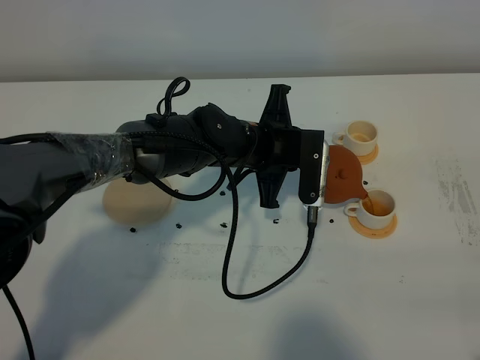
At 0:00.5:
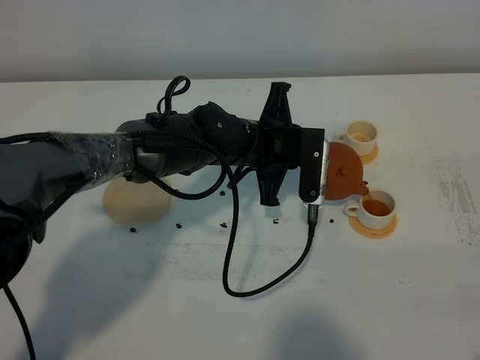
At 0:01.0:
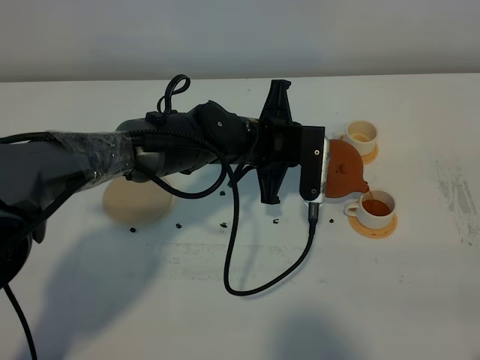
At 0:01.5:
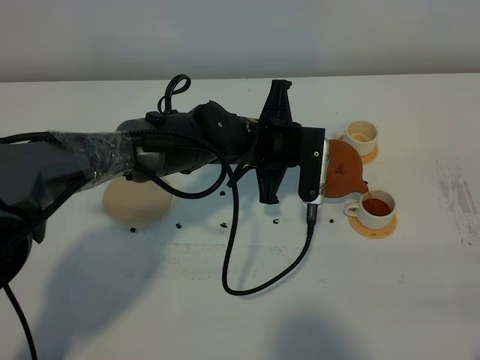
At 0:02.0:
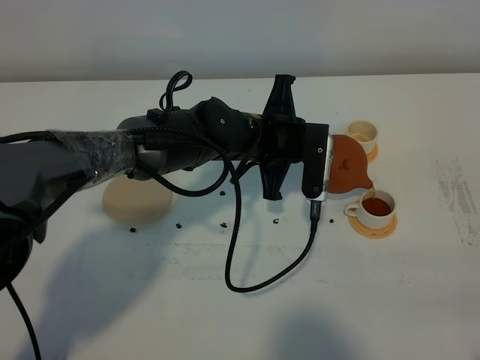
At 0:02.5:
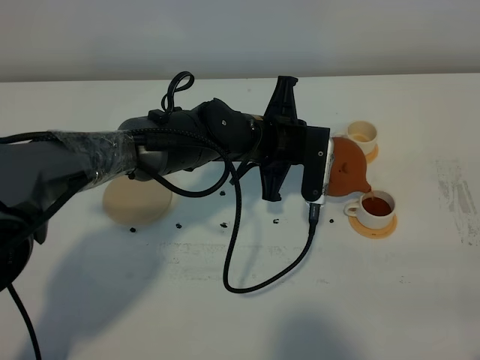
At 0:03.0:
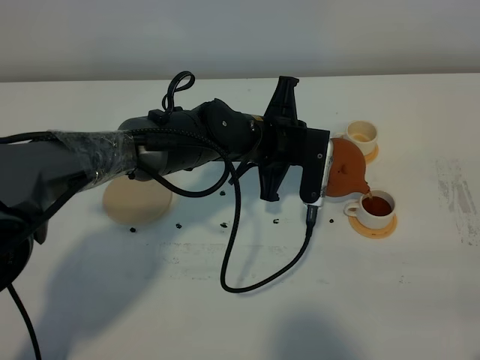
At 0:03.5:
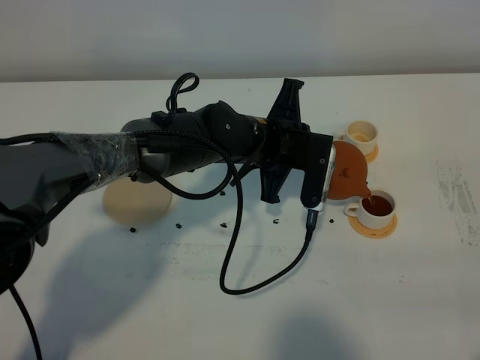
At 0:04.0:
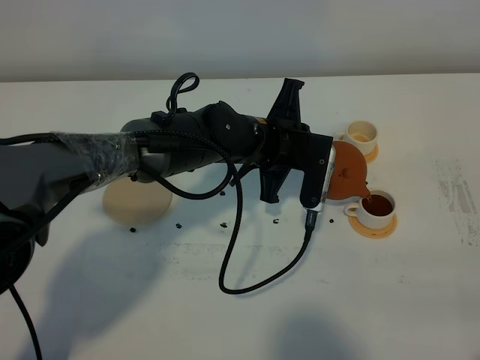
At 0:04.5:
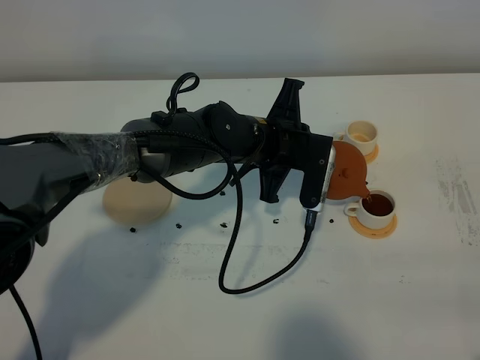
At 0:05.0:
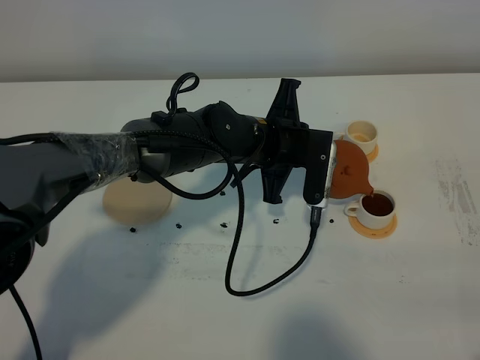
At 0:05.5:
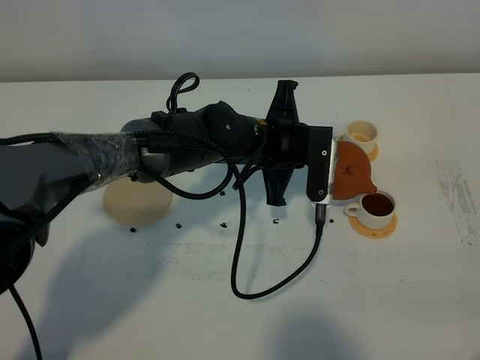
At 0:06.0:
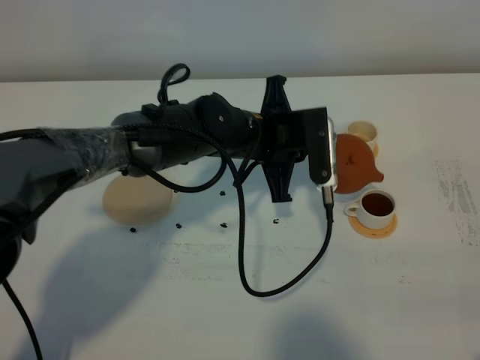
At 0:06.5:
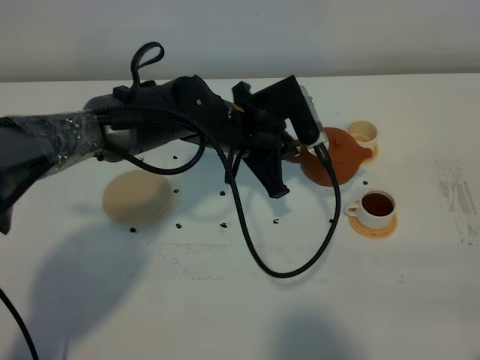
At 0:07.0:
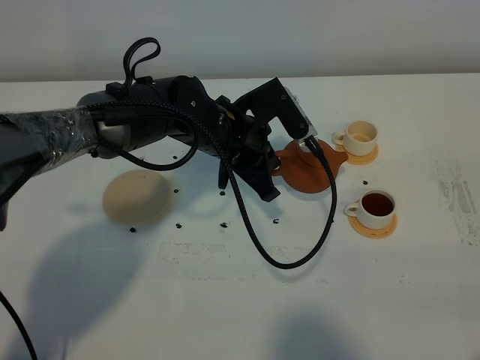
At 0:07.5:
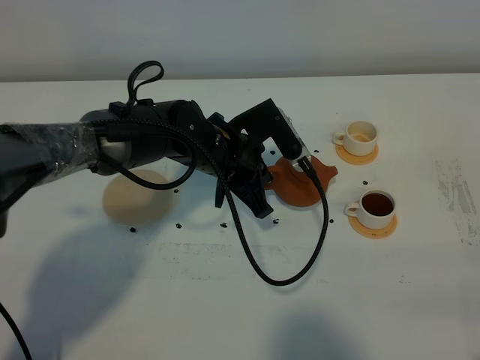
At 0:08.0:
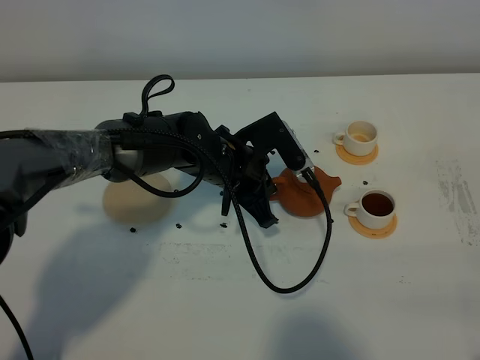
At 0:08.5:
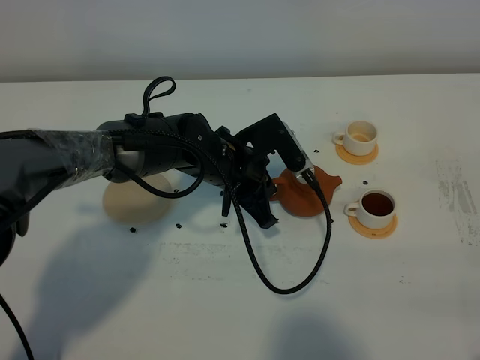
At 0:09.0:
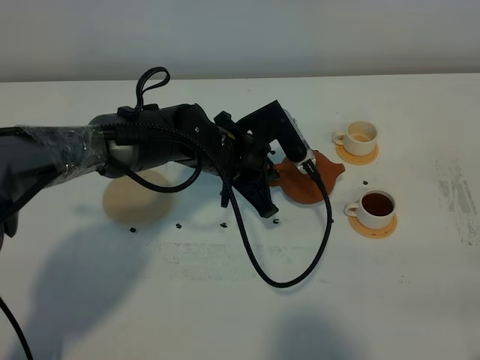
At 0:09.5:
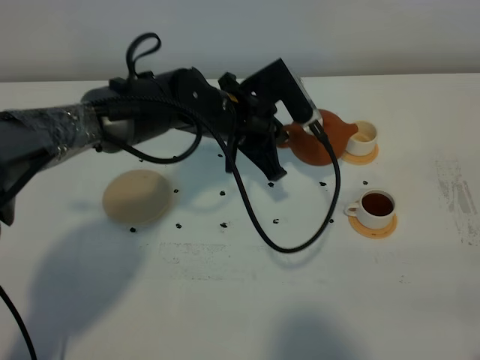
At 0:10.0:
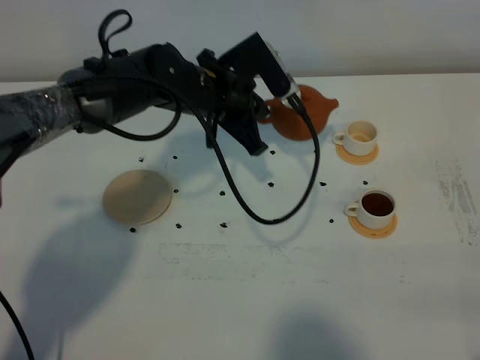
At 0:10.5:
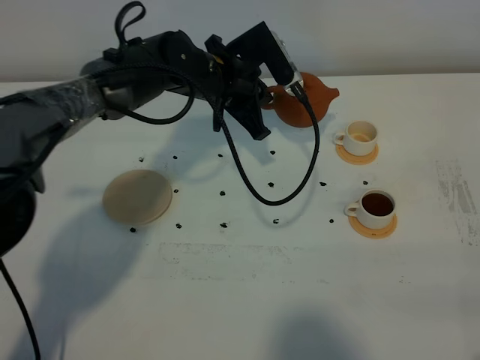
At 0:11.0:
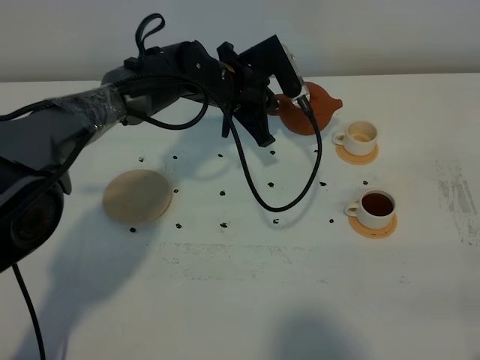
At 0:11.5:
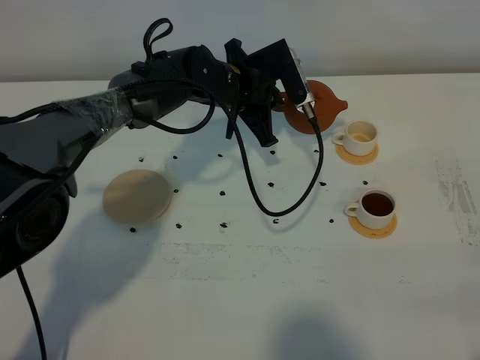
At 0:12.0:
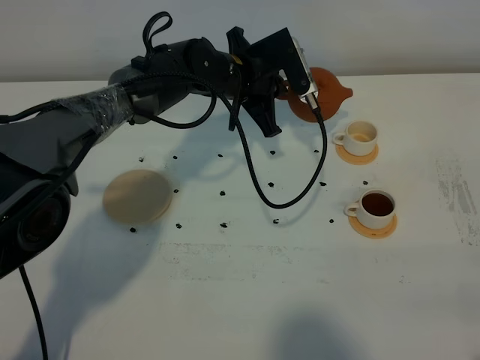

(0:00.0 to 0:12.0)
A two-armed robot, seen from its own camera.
Task of the whole recording: grasp the brown teapot and pour the tea into the two white teacups one by one, put the brown teapot back in its original place.
Step, 0:00.0 - 0:05.5: Pour tea into the teacup with the left gripper.
0:00.0 - 0:02.0: Both grippers stay put.
0:02.0 - 0:04.0: The grippers make only small movements.
0:06.0 - 0:08.0: The left gripper changes place by some 5 cm.
0:08.0 - 0:10.0: The left gripper travels upward and forward by approximately 10 cm.
0:10.0 - 0:12.0: The left gripper moves forward, approximately 5 cm.

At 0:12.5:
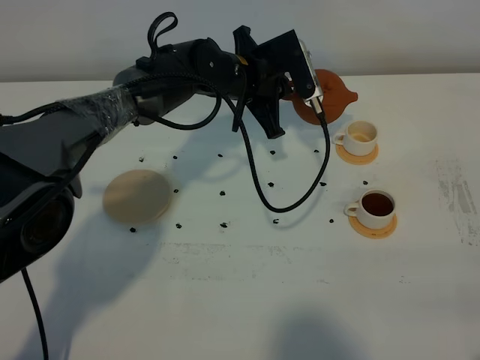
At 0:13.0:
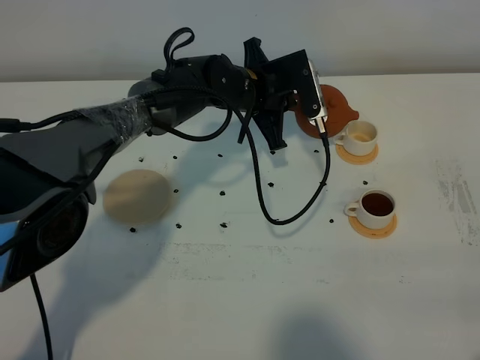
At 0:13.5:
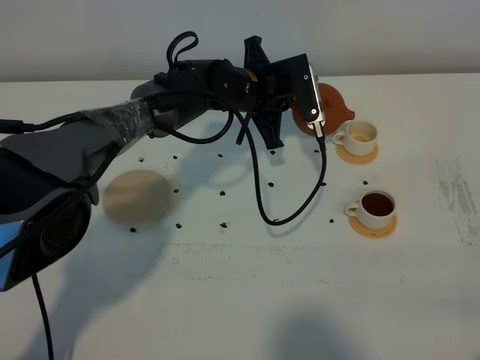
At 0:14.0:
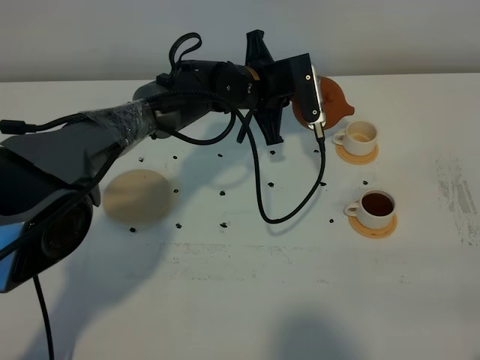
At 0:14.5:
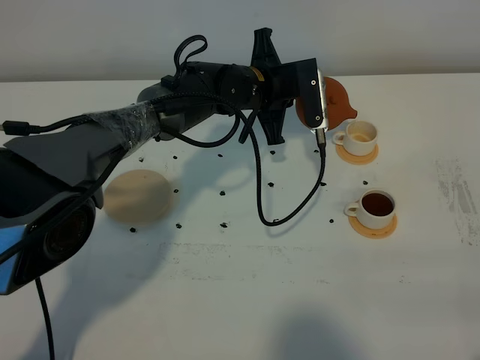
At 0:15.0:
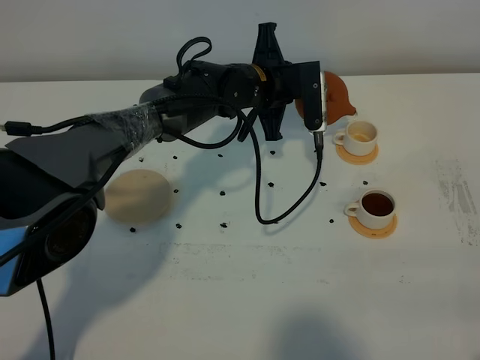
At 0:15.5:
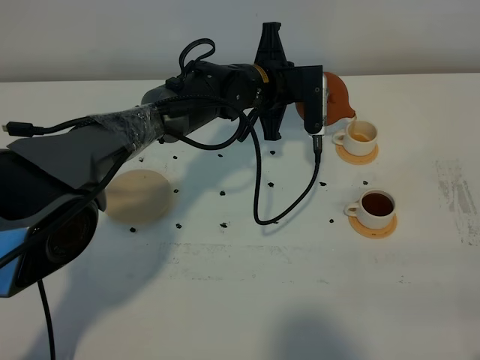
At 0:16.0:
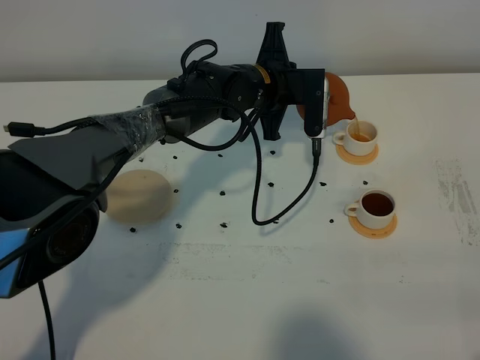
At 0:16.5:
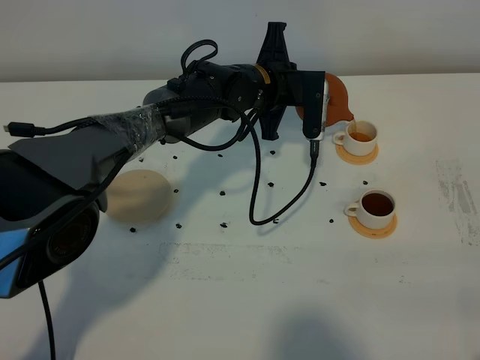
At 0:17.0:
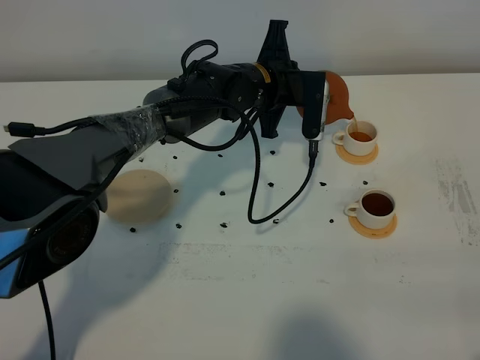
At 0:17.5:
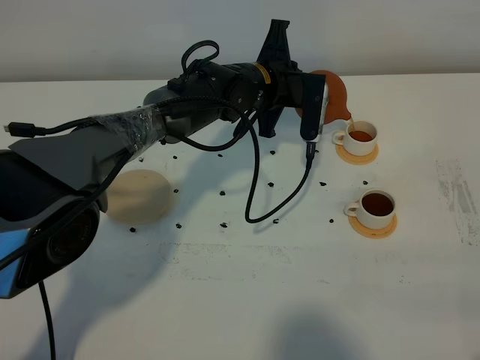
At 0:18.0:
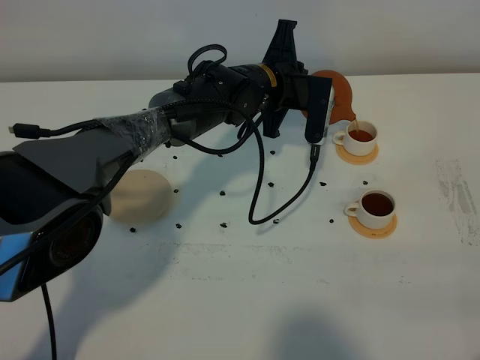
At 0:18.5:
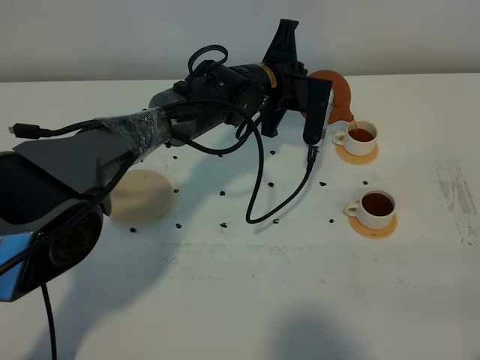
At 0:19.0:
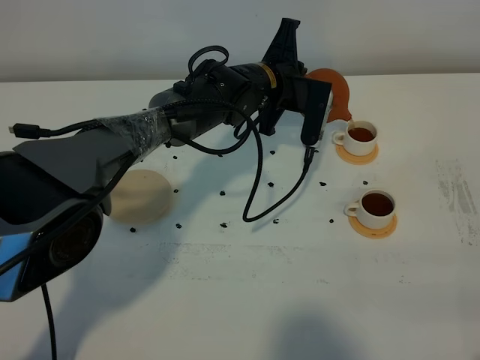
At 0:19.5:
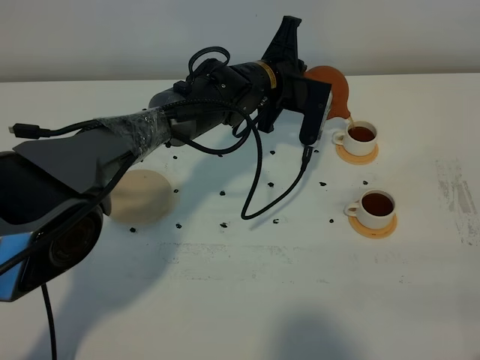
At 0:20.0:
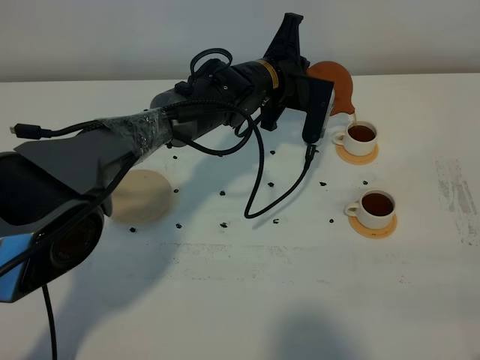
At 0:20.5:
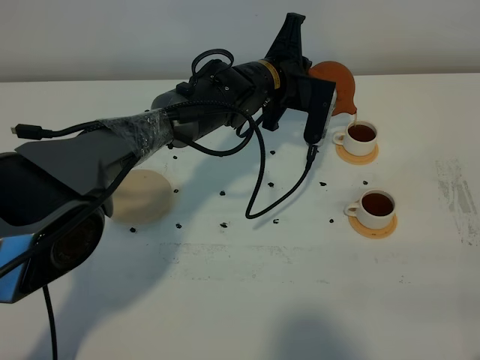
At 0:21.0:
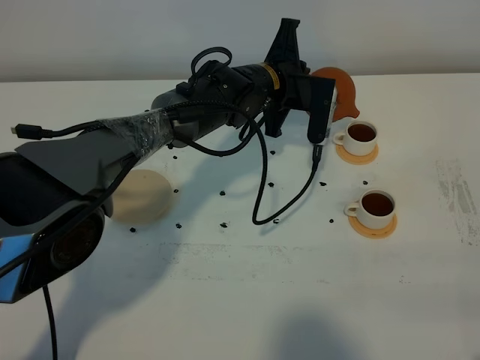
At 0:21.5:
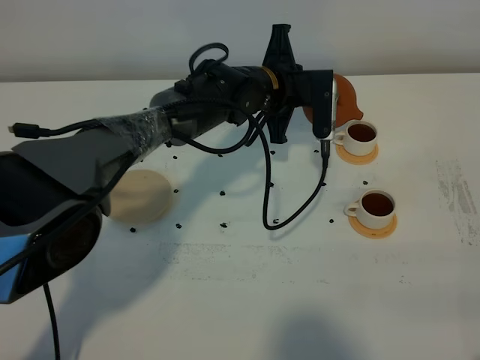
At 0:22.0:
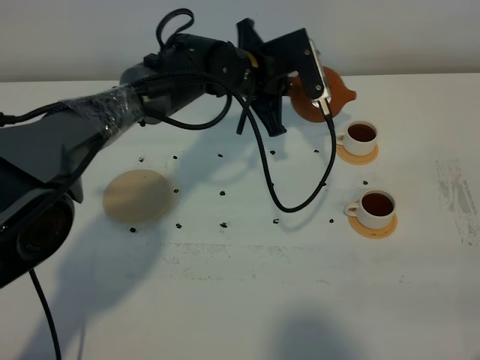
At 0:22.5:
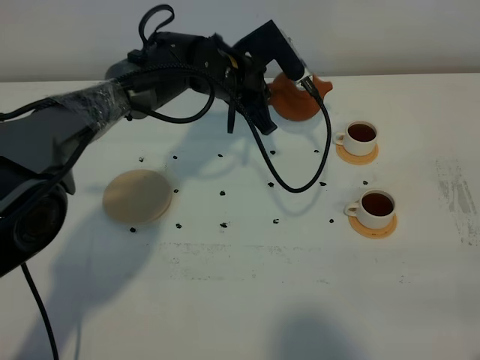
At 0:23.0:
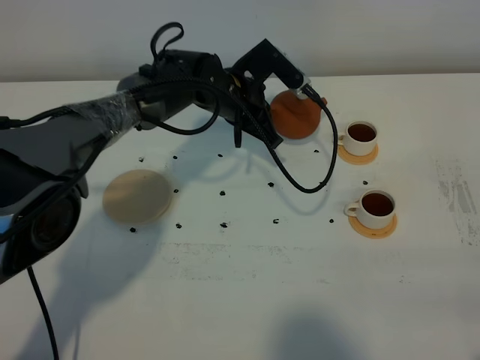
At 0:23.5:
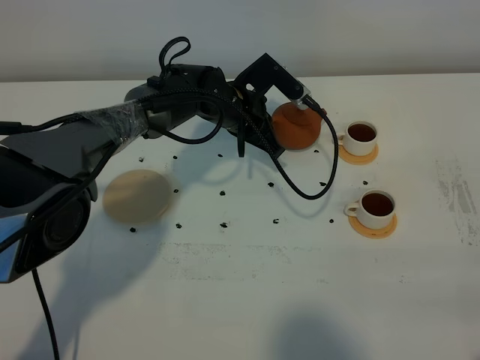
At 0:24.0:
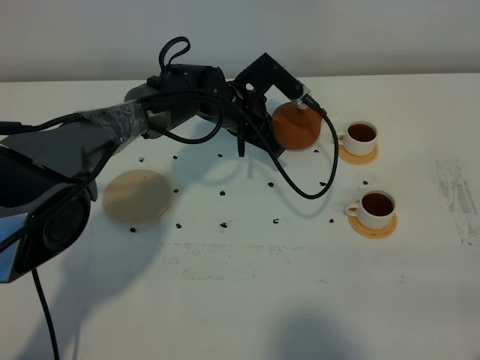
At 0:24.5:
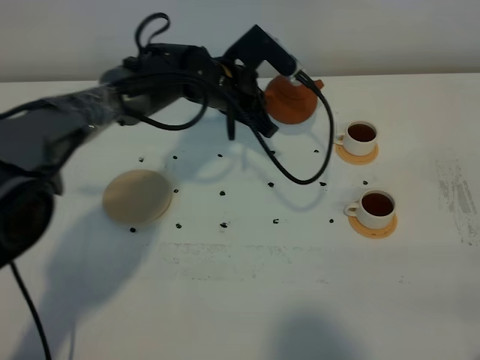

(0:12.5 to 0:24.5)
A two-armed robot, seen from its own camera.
Task of the whole recording: grasp the brown teapot and pour the tea into the two white teacups one by one, put the brown teapot back in its original place.
Step, 0:12.5 - 0:21.5: Pour tea into the teacup with the left gripper.
0:12.5 - 0:14.5: The grippers move only a little.
0:14.5 - 0:16.5: There are only small adjustments of the grippers.
0:16.5 - 0:20.5: There are only small adjustments of the grippers.
0:20.5 - 0:22.5: The left gripper is displaced to the left by approximately 5 cm.
0:22.5 - 0:24.5: There are only small adjustments of the grippers.

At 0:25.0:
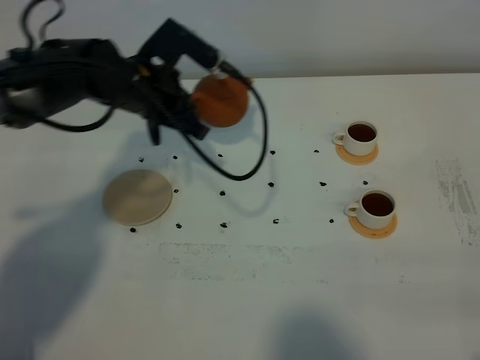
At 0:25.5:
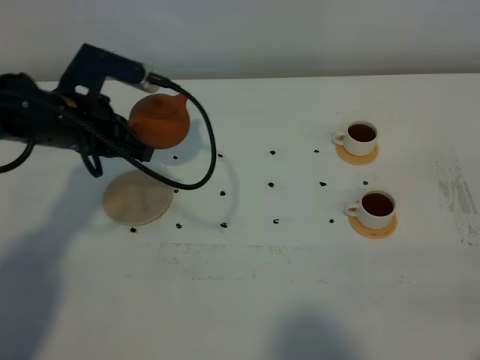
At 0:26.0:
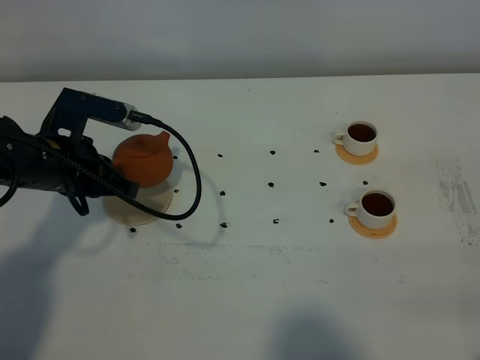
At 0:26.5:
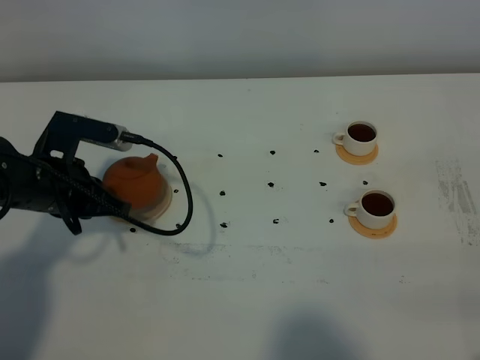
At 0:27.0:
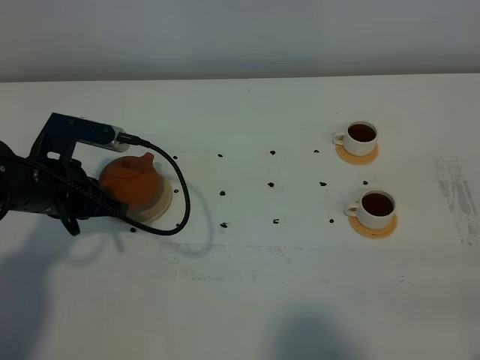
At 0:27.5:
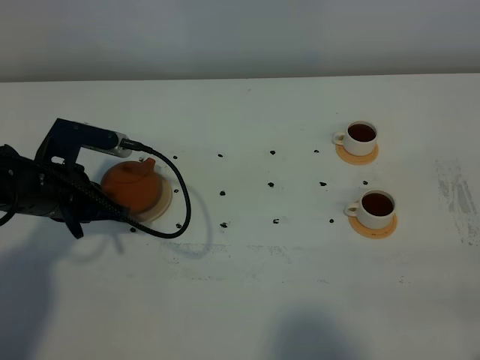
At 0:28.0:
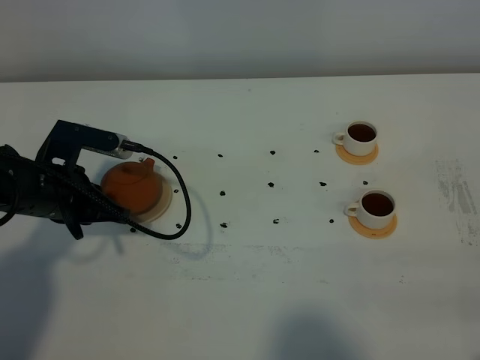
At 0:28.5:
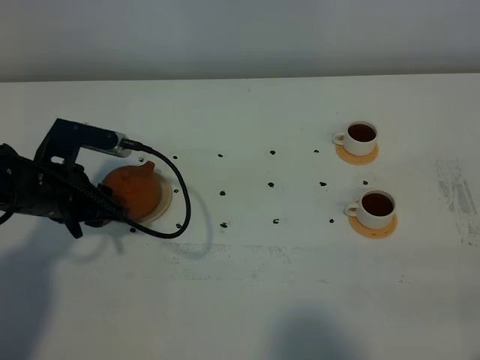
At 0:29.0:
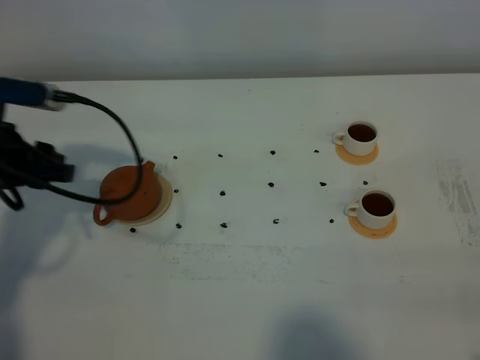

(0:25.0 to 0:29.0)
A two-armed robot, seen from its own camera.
Task of the whole recording: grasp the brown teapot and pour the tea into the two white teacups one by one, put the brown teapot back in its original place.
0:25.0 - 0:27.0: The left gripper is displaced backward, to the left and downward by some 15 cm.
0:27.0 - 0:29.0: The left gripper moves upward and to the left, about 10 cm, and opens up.
